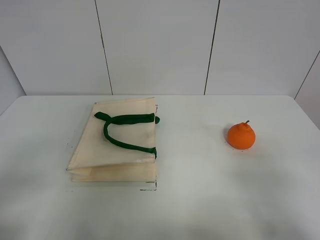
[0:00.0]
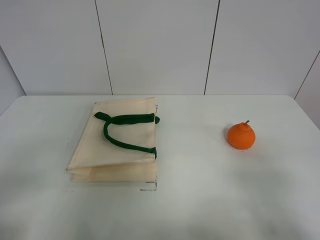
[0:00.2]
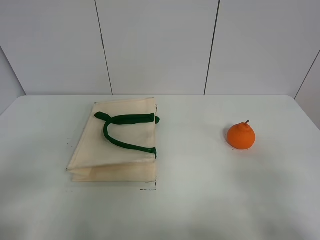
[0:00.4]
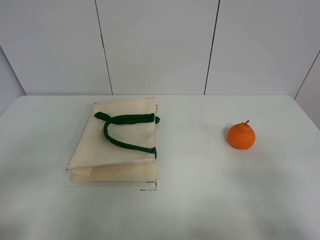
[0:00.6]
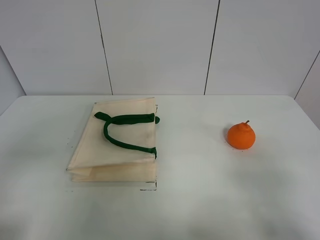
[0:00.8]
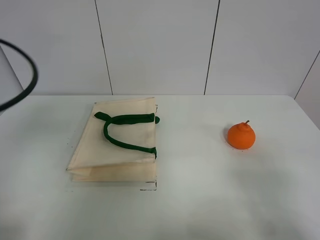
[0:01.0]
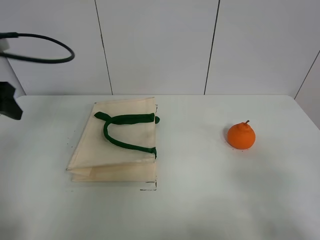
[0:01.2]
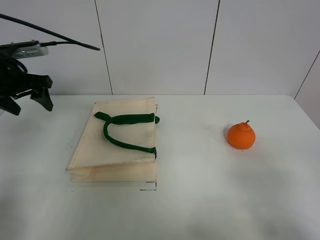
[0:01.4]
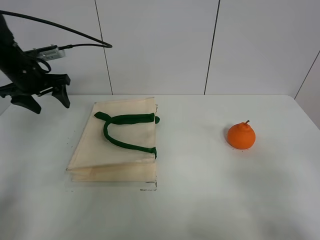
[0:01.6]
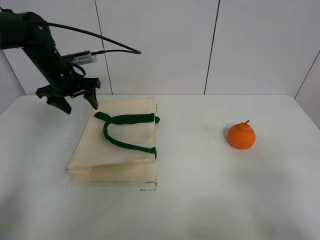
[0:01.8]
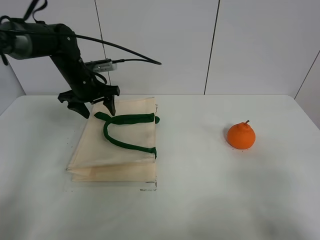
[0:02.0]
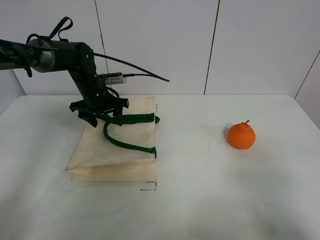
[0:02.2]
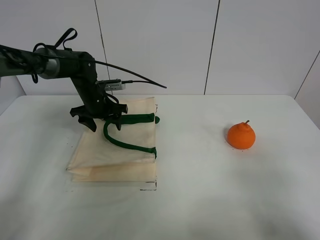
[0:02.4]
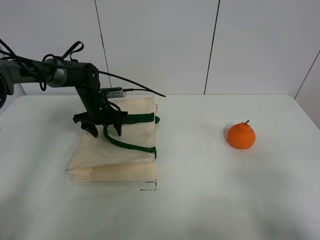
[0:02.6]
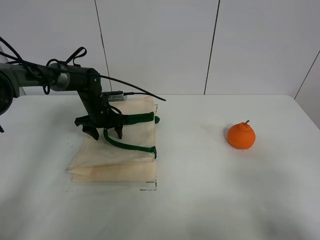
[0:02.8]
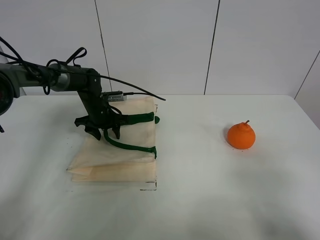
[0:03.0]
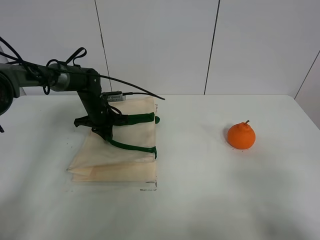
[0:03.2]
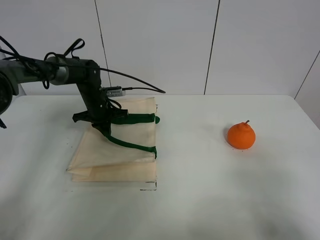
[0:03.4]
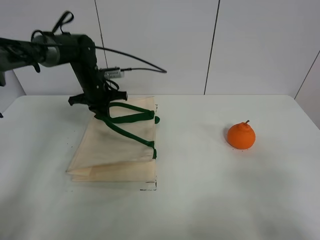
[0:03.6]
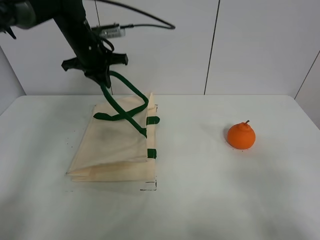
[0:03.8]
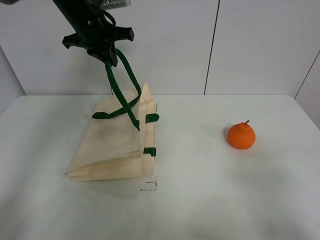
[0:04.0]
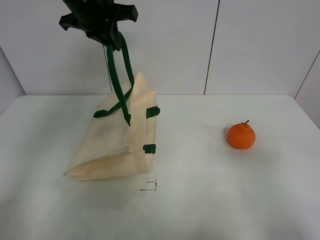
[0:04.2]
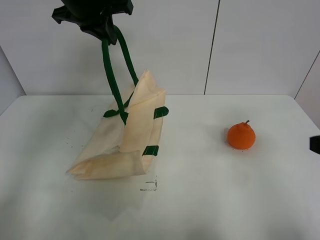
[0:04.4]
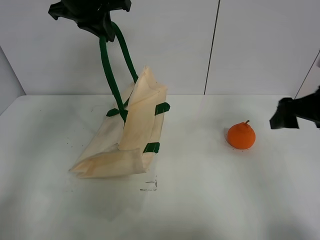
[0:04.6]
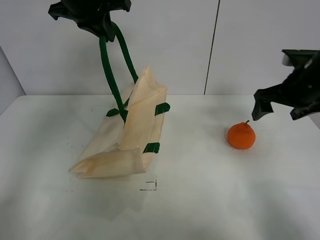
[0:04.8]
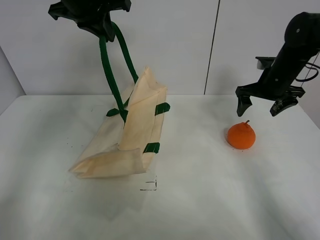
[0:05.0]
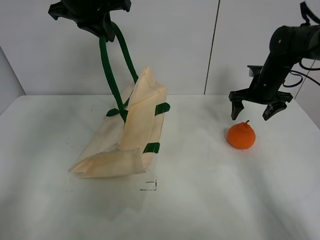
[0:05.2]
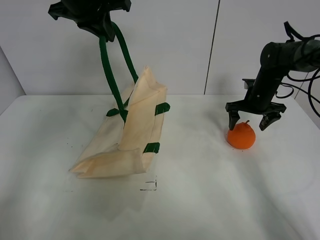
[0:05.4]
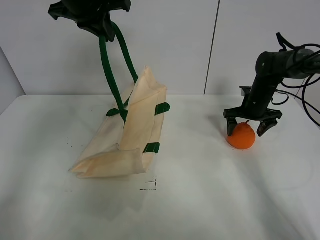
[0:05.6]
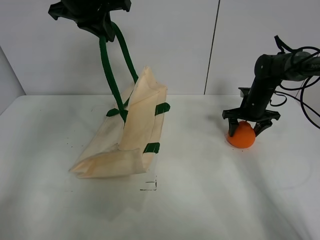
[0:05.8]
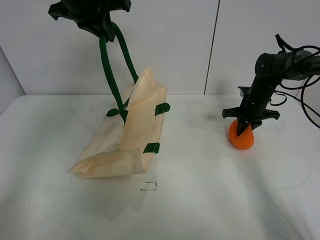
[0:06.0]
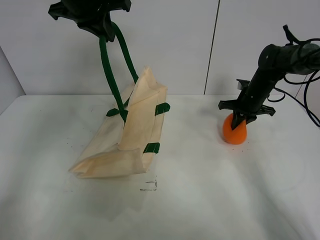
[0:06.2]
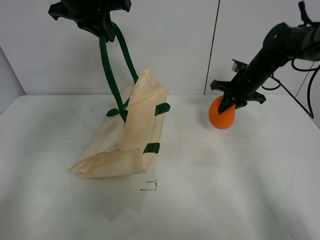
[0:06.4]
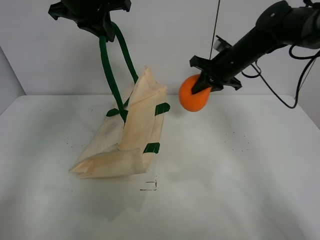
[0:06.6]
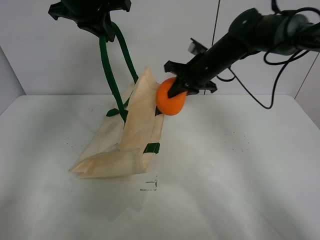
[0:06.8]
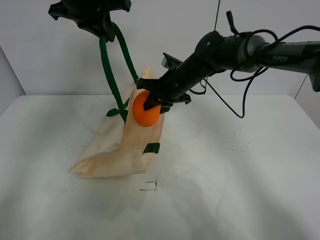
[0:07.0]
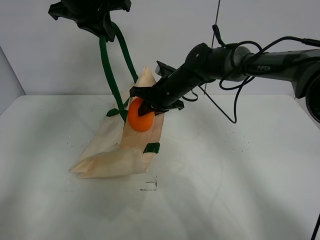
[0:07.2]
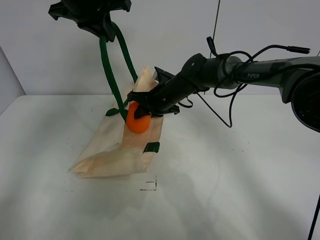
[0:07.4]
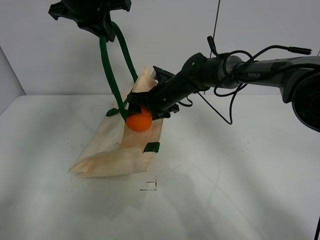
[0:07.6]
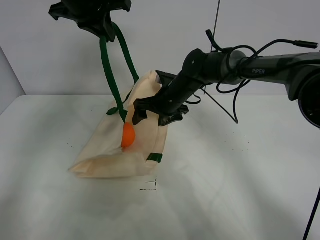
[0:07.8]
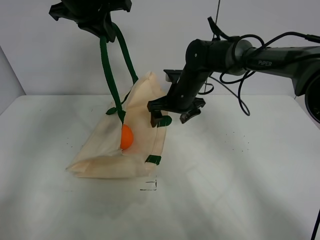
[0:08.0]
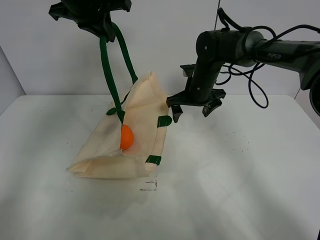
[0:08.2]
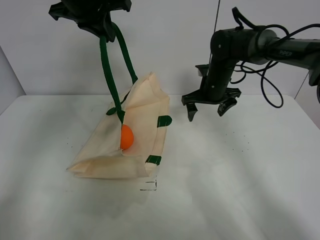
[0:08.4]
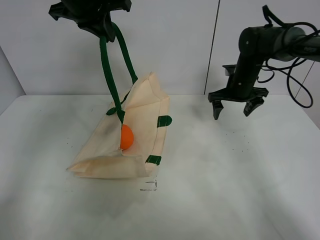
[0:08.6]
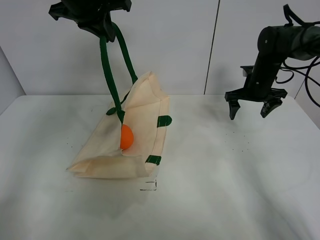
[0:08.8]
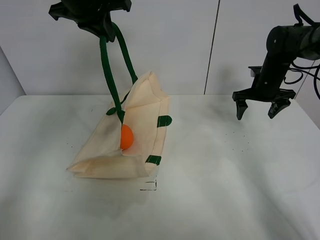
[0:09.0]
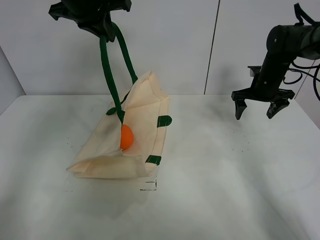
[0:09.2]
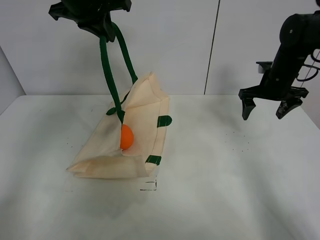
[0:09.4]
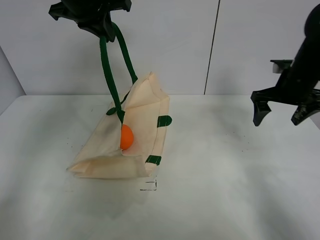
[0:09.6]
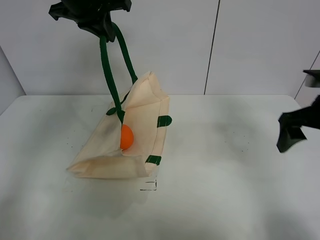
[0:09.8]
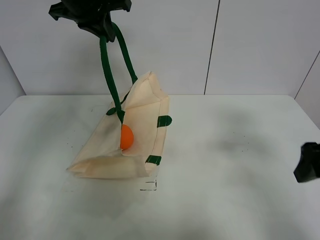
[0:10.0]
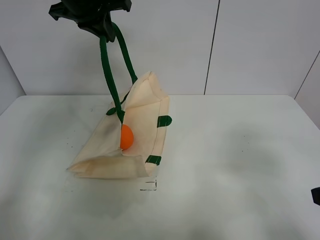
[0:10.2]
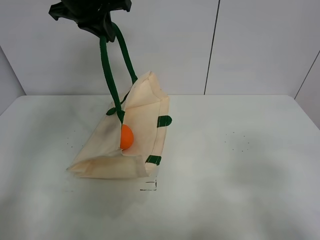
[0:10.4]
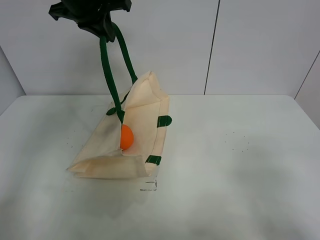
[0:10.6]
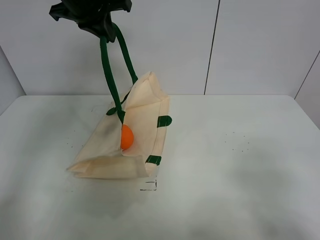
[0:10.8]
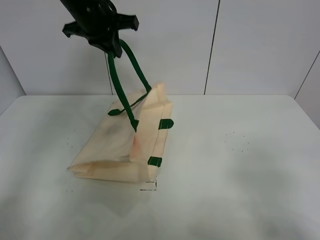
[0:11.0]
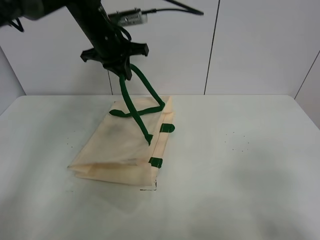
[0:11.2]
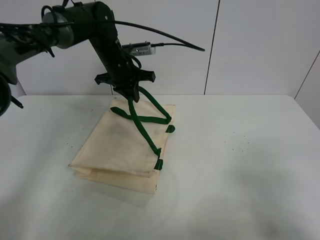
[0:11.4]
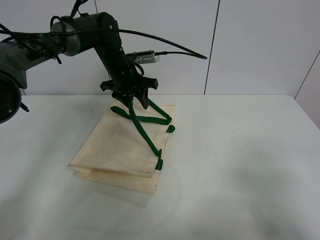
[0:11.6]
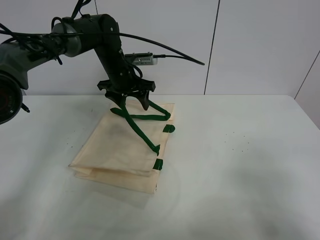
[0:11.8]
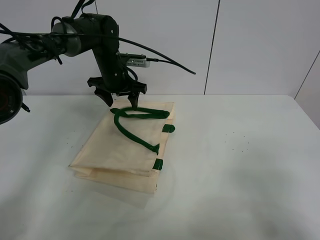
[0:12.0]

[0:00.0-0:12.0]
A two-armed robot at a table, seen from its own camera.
Task of the whole recording: open the white linen bag and put the orange in the bag.
Step, 0:00.0 to 0:04.2: Lift the handbag with left gripper.
Step, 0:04.4 to 0:06.0: Grasp the orange with right gripper.
Step, 0:06.2 to 0:07.6: Place the orange in the handbag with right gripper.
Step, 0:07.8 to 0:12.0: Put down the handbag with left gripper.
0:00.0 to 0:01.6: The left gripper shifts approximately 40 cm forward.
0:01.6 to 0:03.0: The left gripper shifts roughly 20 cm downward, to the right and forward, and closes.
0:03.0 to 0:04.4: The right gripper travels forward by about 15 cm; the left gripper heads upward, covering approximately 30 cm, and closes.
0:04.4 to 0:06.0: The right gripper travels forward and downward by about 35 cm, and closes.
0:06.0 to 0:07.6: The right gripper goes some 25 cm to the left, and opens.
0:07.6 to 0:09.0: The right gripper shifts about 25 cm to the right.
0:09.0 to 0:10.4: The right gripper is displaced backward by some 40 cm.
0:10.4 to 0:12.0: The left gripper moves downward, approximately 20 cm, and opens up.

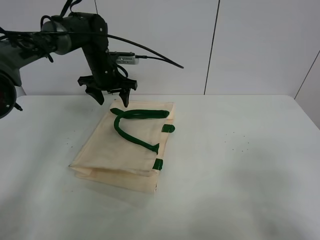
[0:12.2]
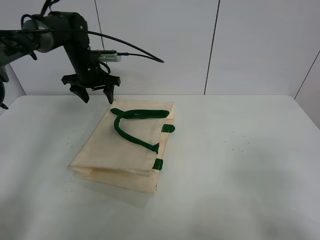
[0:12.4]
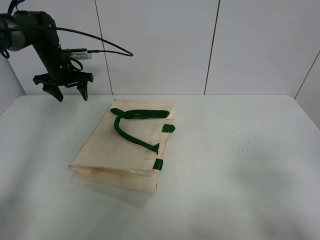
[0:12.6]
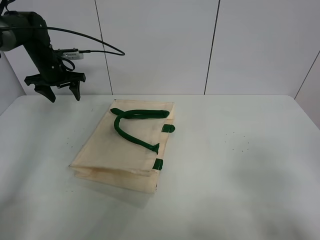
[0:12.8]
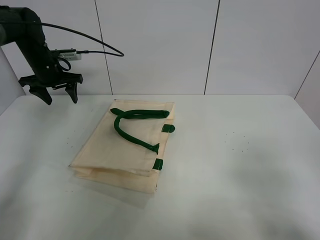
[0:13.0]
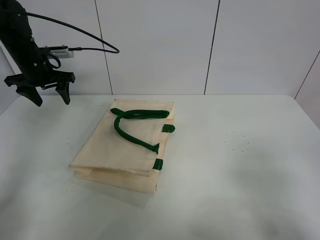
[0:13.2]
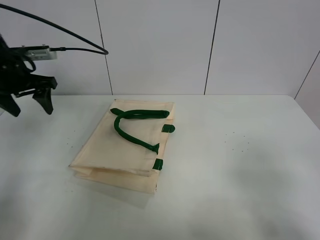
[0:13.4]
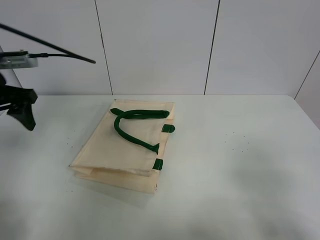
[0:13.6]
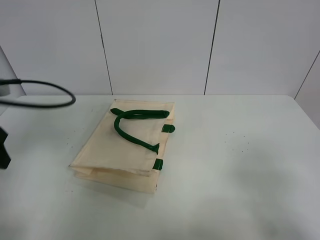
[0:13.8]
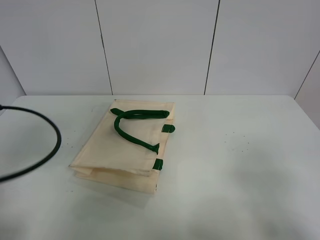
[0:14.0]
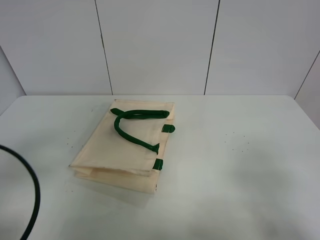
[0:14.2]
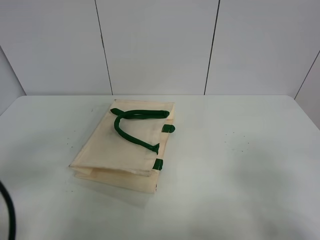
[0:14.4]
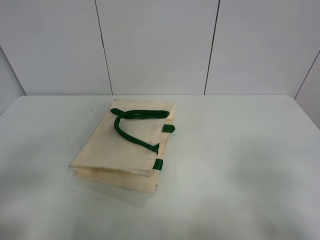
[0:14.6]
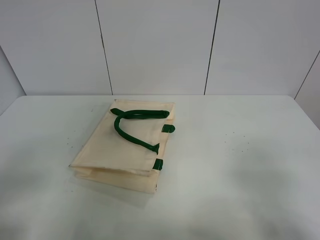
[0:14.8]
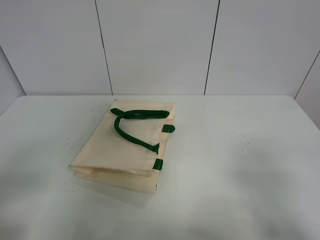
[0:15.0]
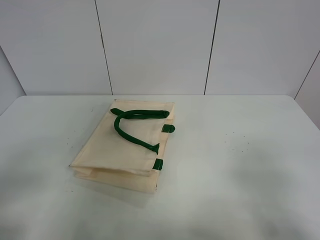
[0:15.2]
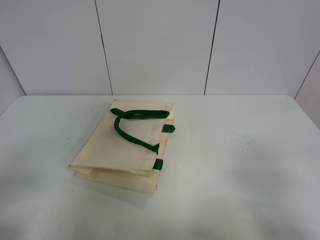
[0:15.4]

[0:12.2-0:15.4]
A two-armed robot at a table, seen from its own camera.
Task of the whole recording: open the white linen bag and put the orange in the bag.
0:12.2 to 0:13.8: The left gripper moves backward and to the left, some 30 cm.
0:13.8 to 0:15.4: The left gripper heads backward, covering about 20 cm.

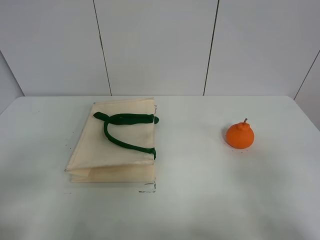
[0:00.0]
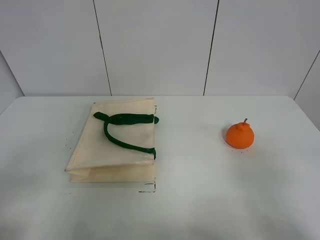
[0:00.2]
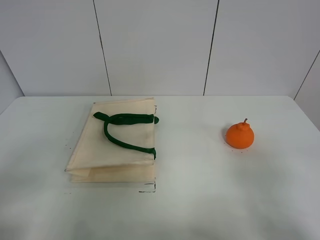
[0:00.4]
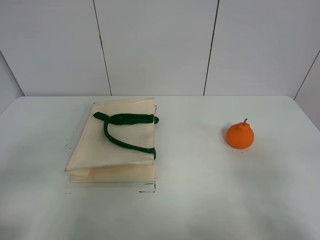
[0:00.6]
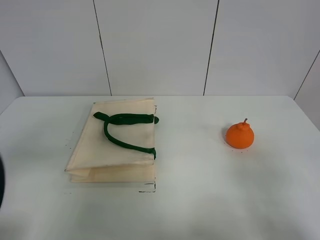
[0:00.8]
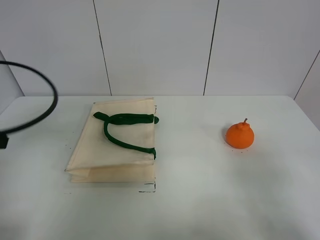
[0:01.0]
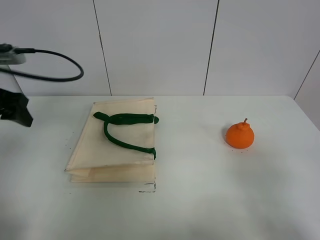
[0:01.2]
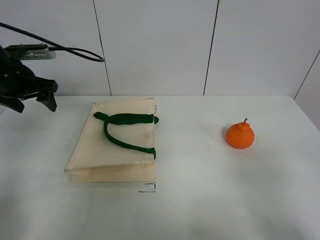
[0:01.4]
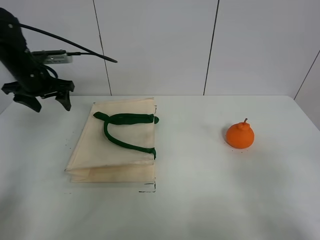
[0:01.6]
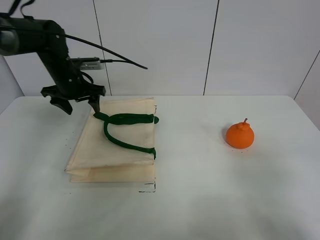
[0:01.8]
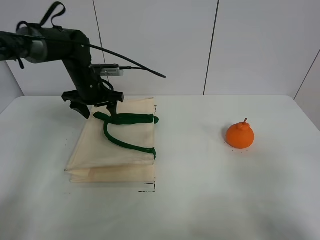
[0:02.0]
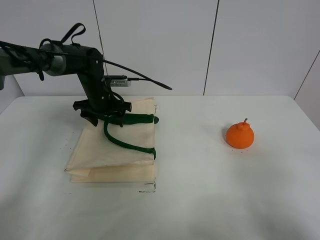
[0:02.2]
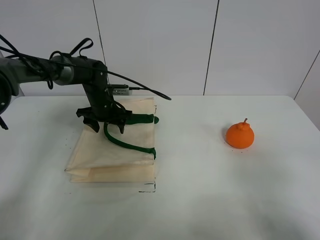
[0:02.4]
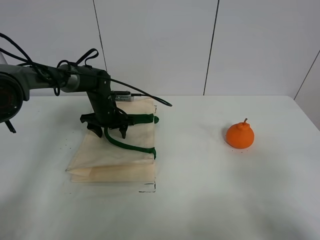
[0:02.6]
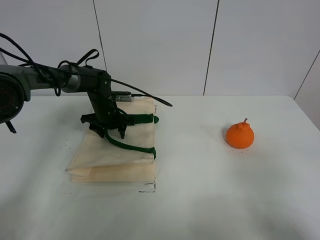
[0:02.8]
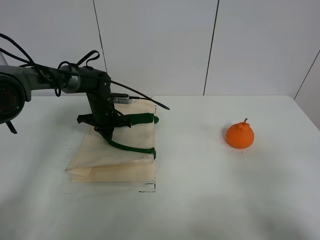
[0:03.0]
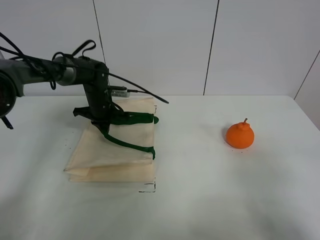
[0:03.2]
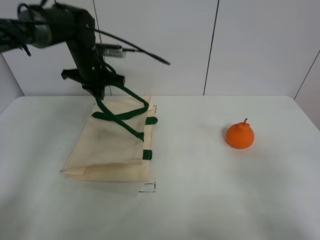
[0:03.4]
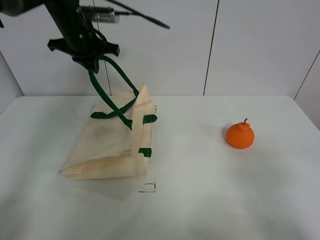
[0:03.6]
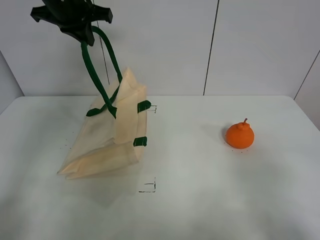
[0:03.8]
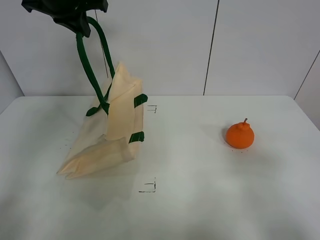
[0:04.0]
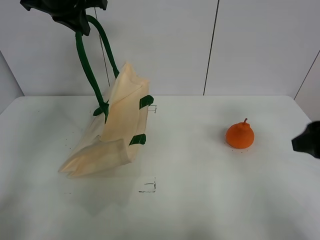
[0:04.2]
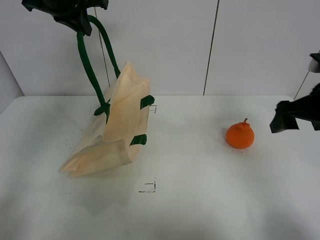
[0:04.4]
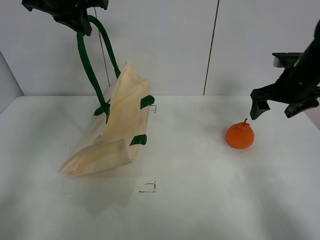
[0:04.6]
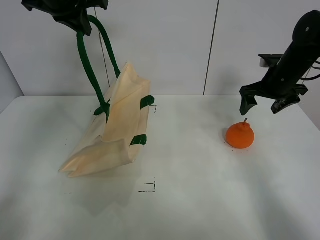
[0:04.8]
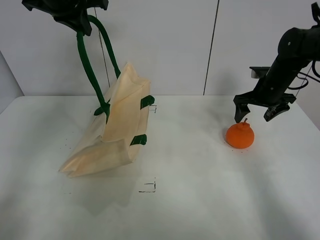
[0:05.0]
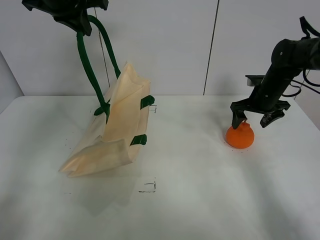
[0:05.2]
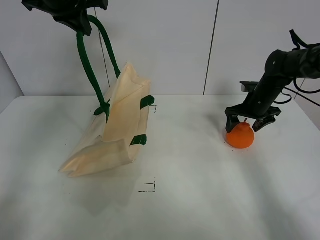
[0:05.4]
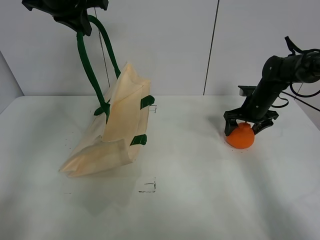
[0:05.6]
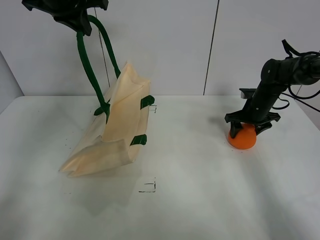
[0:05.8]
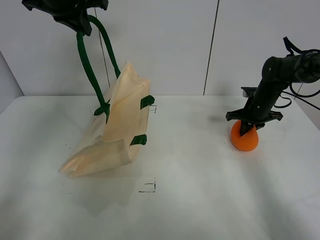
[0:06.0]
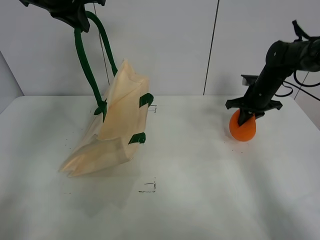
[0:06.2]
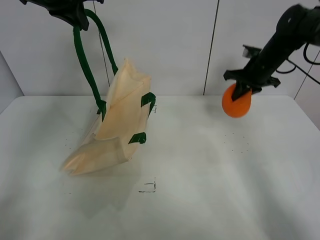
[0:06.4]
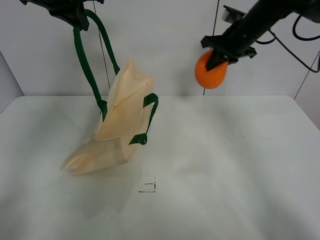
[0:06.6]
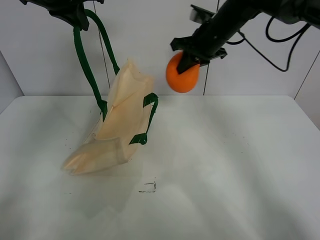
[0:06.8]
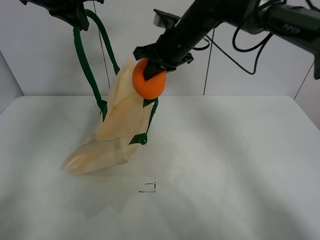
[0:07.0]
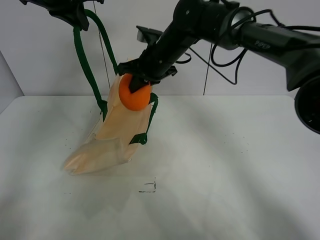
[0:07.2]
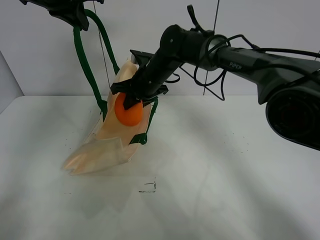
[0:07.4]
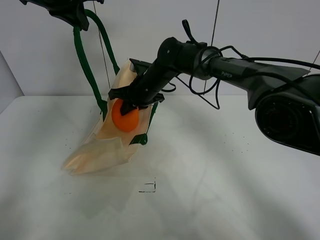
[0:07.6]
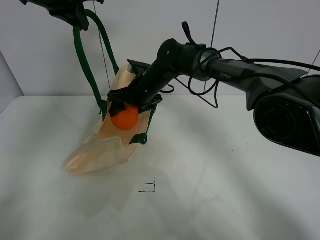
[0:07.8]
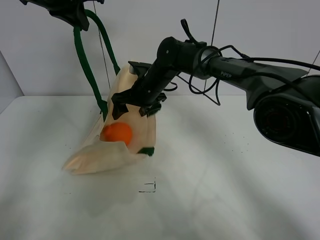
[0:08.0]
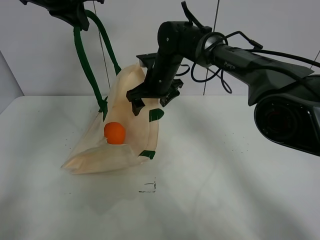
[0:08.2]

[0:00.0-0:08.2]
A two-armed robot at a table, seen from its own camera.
Task of the whole recording: open the white linen bag and put the orange in the bag.
Step, 0:00.0 to 0:04.0: Lift the handbag with left gripper.
Step, 0:04.2 to 0:05.8: Grasp the orange with right gripper.
Step, 0:06.0 to 0:08.0: Place the orange in the handbag with right gripper.
0:00.0 to 0:01.6: The left gripper travels forward by roughly 40 cm.
0:01.6 to 0:03.2: The left gripper goes approximately 15 cm to the right and downward, and closes its fingers.
0:03.2 to 0:05.0: The right gripper shifts approximately 40 cm forward, while the left gripper heads upward, covering about 30 cm.
0:05.0 to 0:06.6: The right gripper heads upward and to the left, covering about 15 cm, and closes its fingers.
0:06.6 to 0:08.2: The right gripper travels to the left and downward by about 20 cm, and opens up.
